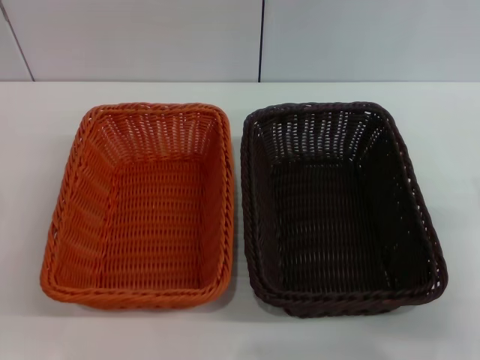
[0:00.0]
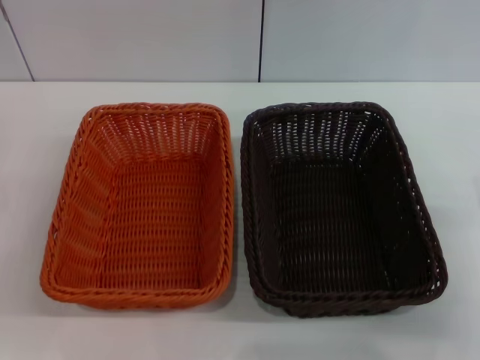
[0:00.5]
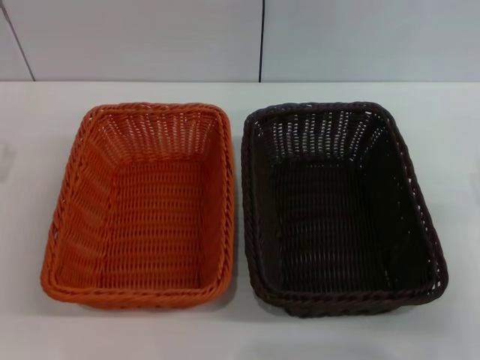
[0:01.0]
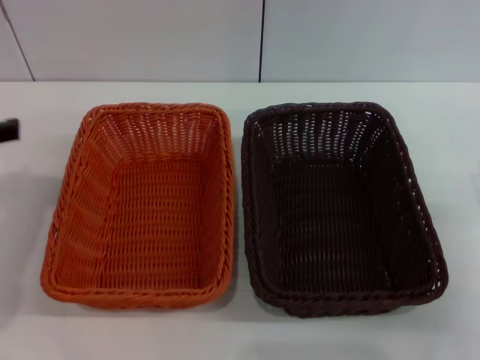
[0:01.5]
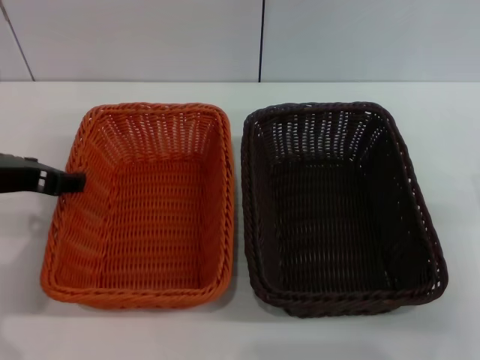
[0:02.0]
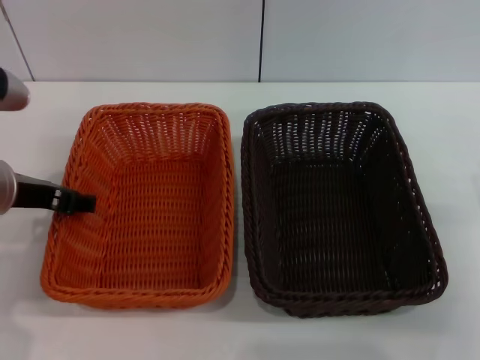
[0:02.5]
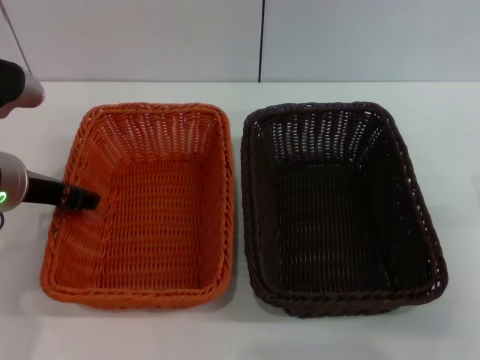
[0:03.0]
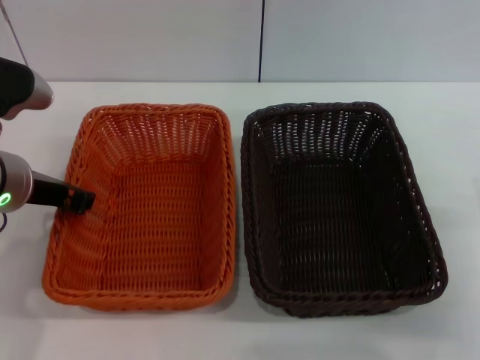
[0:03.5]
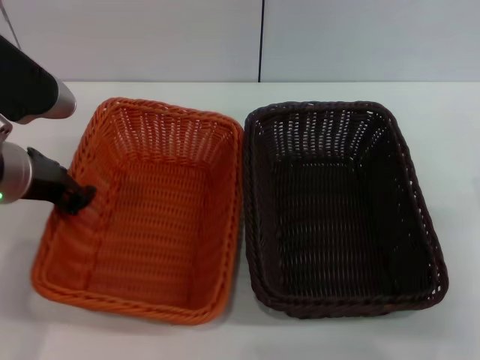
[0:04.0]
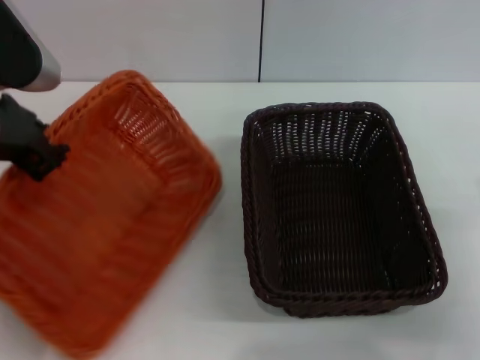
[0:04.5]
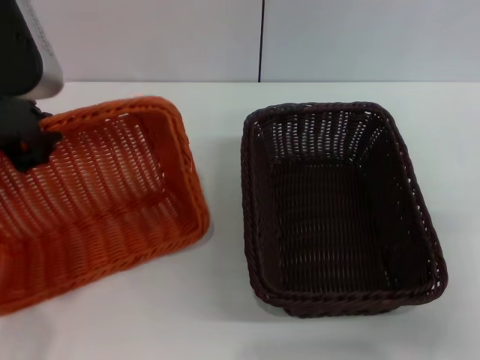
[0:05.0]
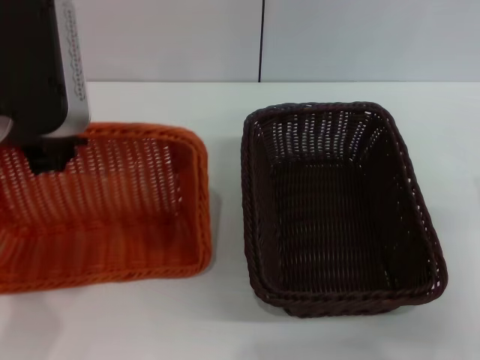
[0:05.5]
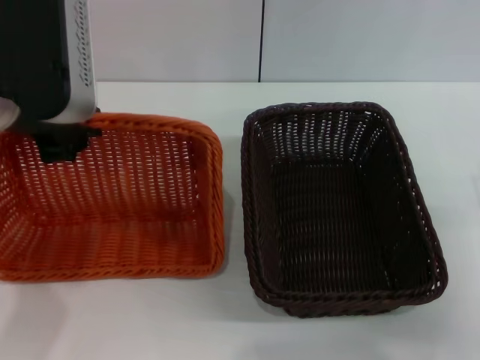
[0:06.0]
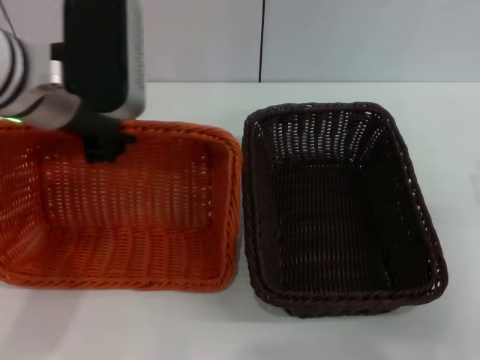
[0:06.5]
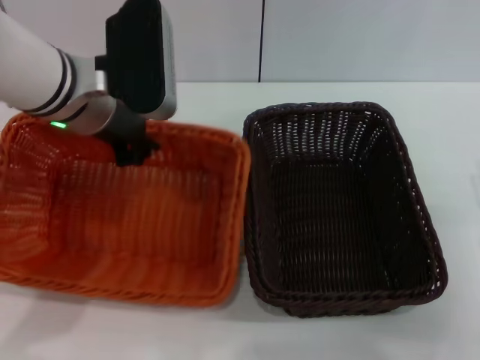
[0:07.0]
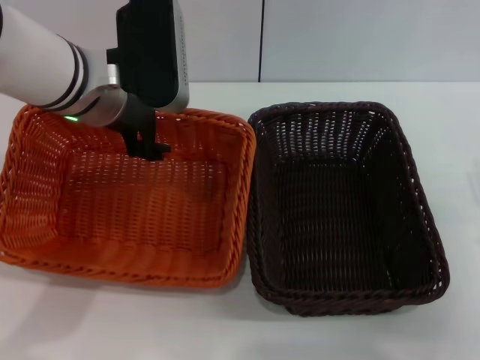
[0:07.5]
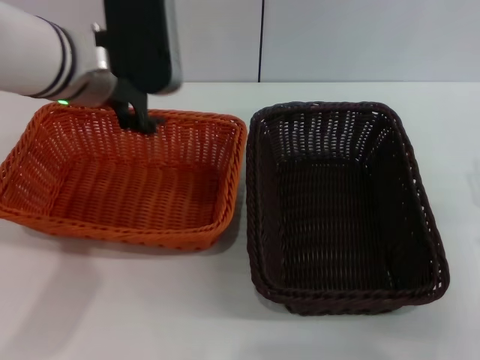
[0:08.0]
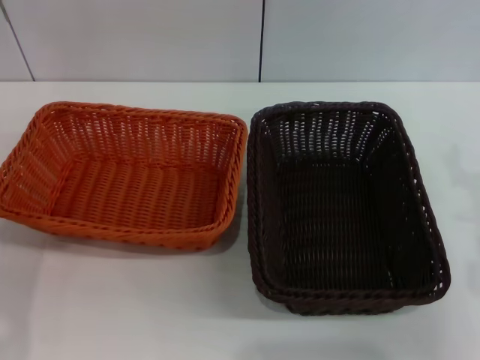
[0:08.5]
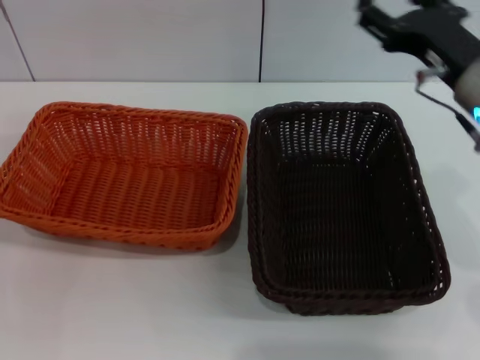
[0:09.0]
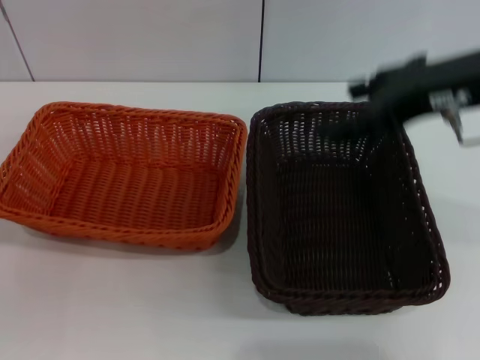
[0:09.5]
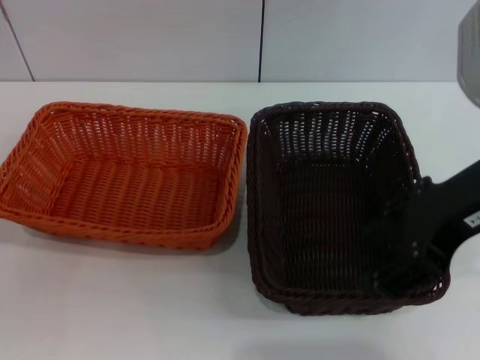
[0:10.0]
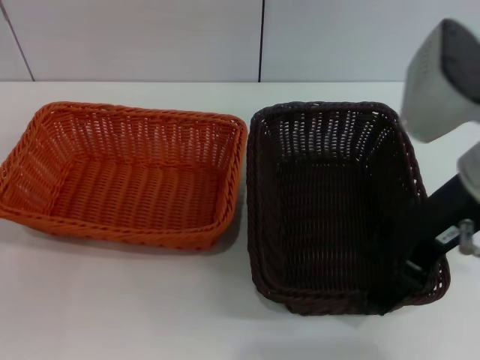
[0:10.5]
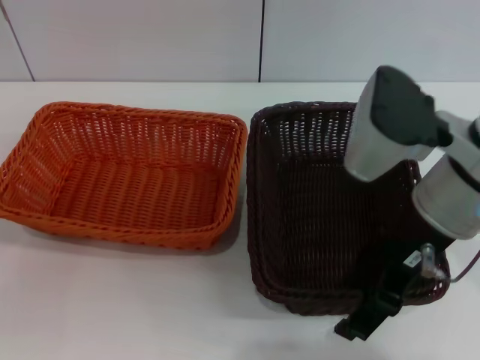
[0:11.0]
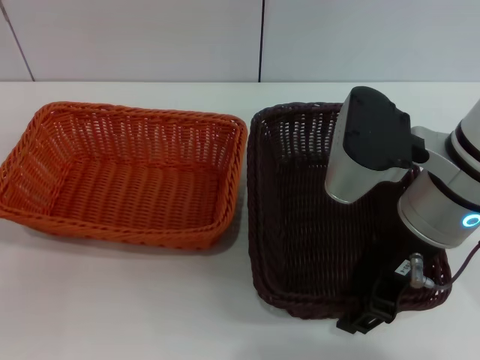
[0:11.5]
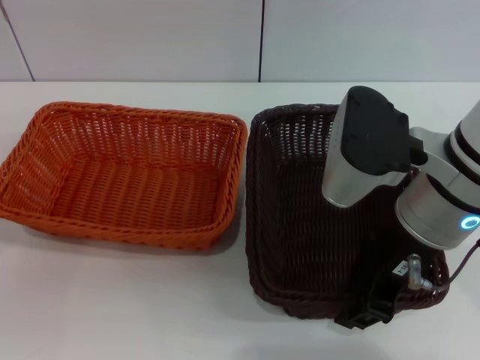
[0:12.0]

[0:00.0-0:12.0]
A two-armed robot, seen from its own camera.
Step, 0:00.0 to 0:04.0: Pick up the light basket with the left gripper.
Step, 0:04.5 to 0:07.5: Place the light basket in the center of view with the left gripper.
0:00.0 to 0:02.0: The left gripper travels upward, to the right and forward by approximately 20 cm.
0:02.0 to 0:04.0: The left gripper closes.
0:04.0 to 0:06.0: The left gripper travels upward by roughly 10 cm.
0:06.0 to 0:08.0: The left gripper shifts about 5 cm forward, and opens its fingers.
0:08.0 to 0:10.0: The left gripper travels downward, backward and to the left by roughly 30 cm. The right gripper shifts about 20 cm upward and to the left.
0:10.0 to 0:12.0: The right gripper goes some 10 cm downward and to the left, and closes its fingers.

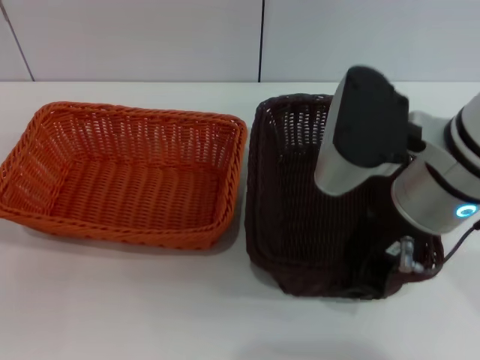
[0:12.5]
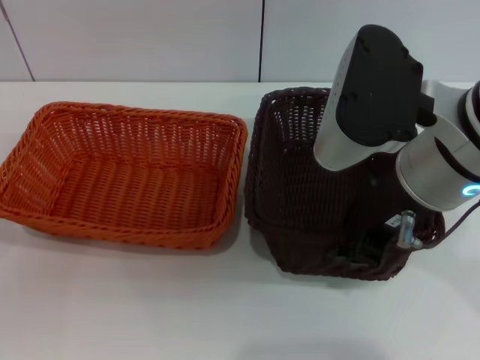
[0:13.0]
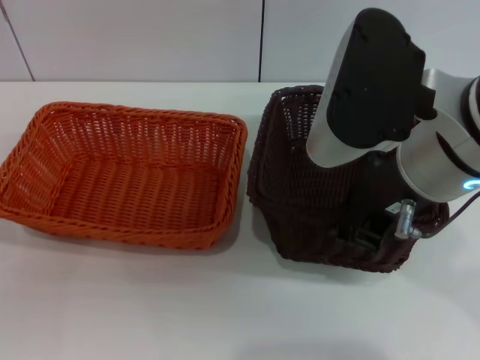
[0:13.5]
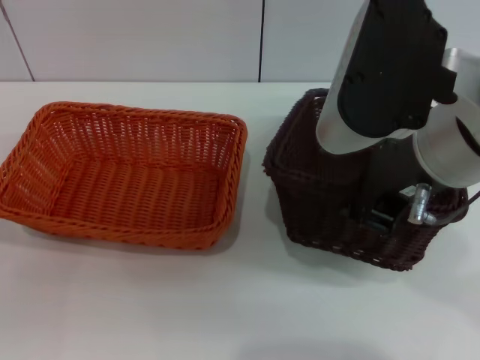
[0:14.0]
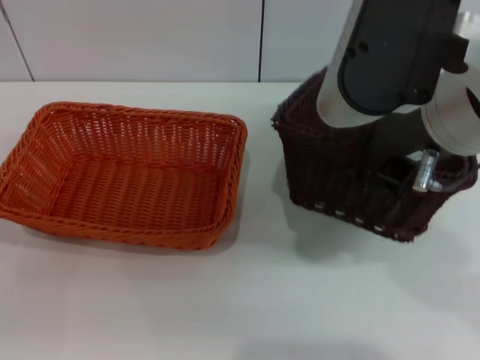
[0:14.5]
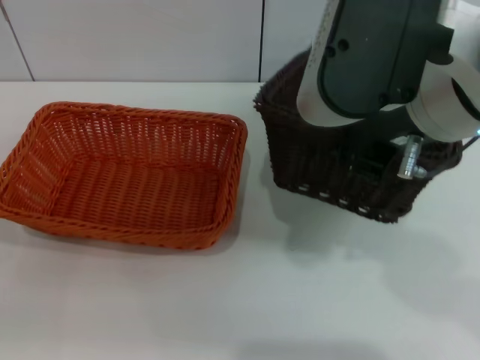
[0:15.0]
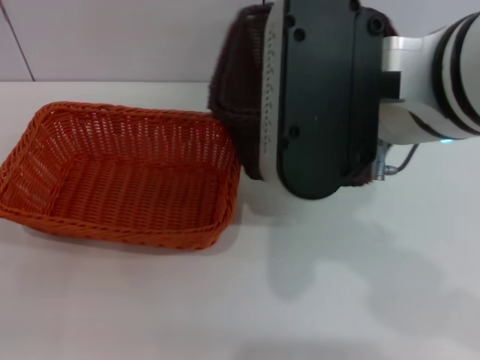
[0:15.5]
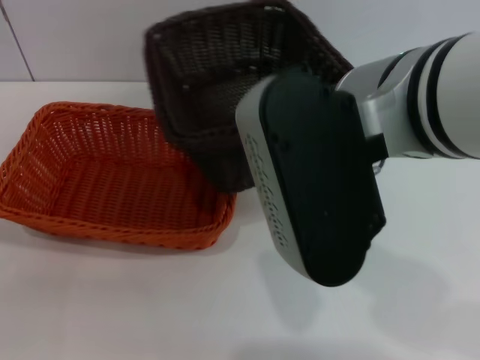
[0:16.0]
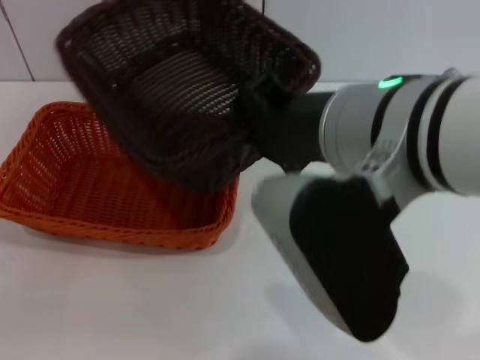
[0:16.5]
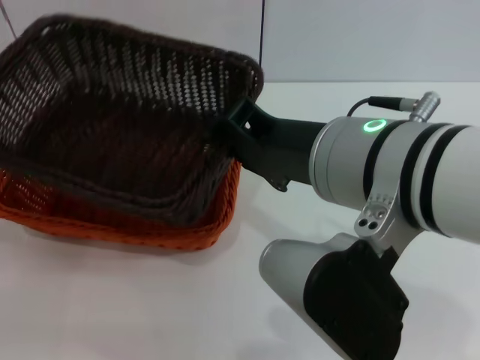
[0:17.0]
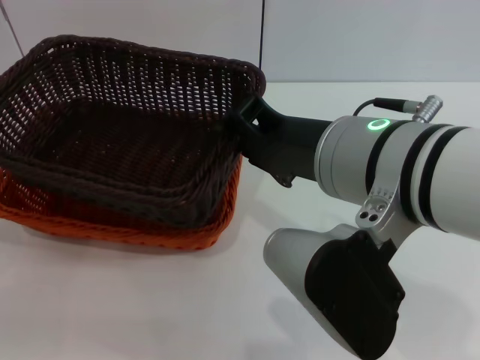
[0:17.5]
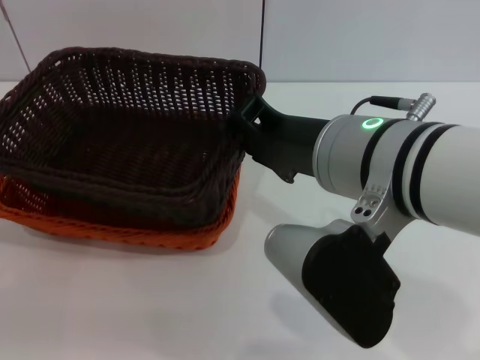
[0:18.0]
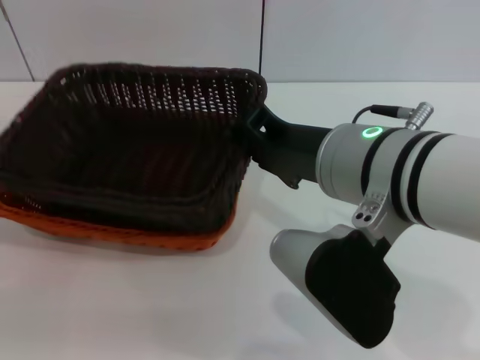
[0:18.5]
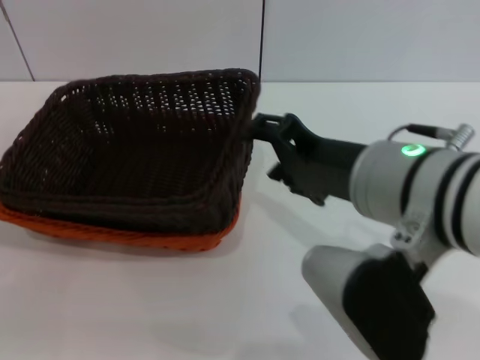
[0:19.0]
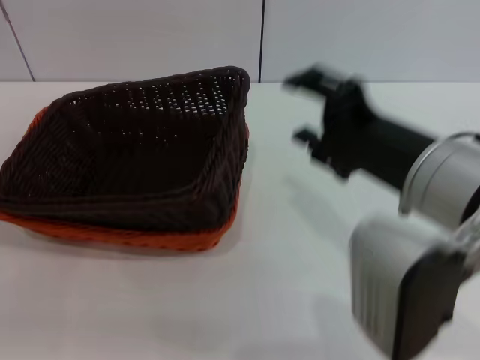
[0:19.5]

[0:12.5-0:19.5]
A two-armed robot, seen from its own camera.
Step, 0:12.5 to 0:14.5: Pick up the dark basket with the right gripper.
Step, 0:15.0 to 0:19.0: Place the dark basket on the light basket with the right gripper.
0:12.5 to 0:14.5: The right gripper heads upward, covering about 10 cm.
0:14.5 to 0:16.0: The right gripper shifts by some 5 cm.
0:16.0 to 0:17.5: The right gripper heads downward, covering some 5 cm.
0:17.5 to 0:19.5: The right gripper goes about 5 cm to the right, and opens up.

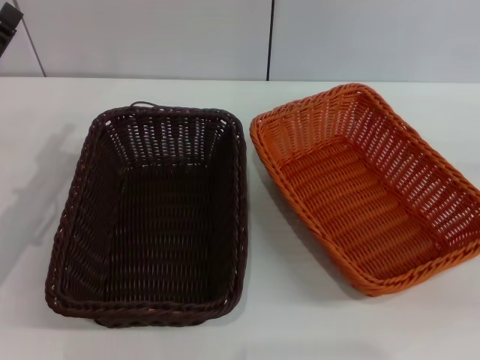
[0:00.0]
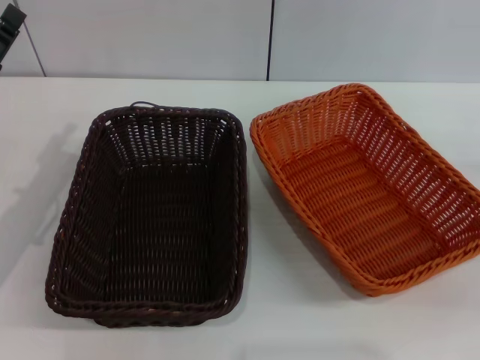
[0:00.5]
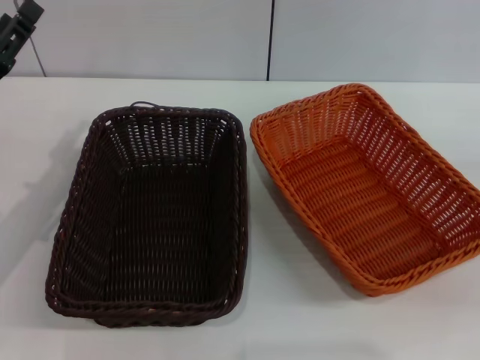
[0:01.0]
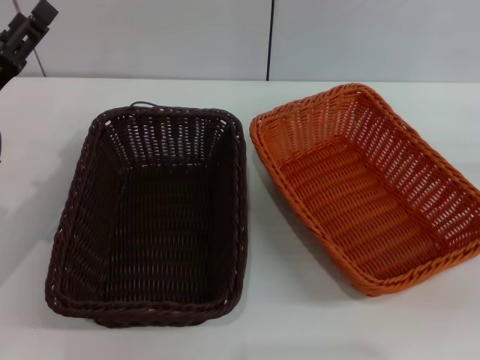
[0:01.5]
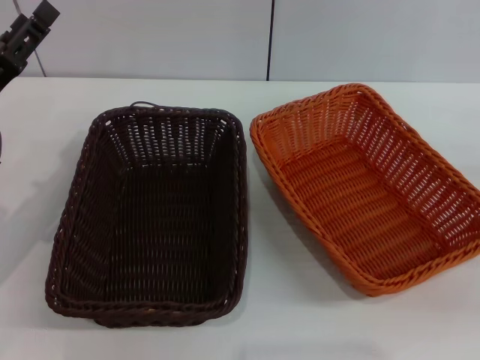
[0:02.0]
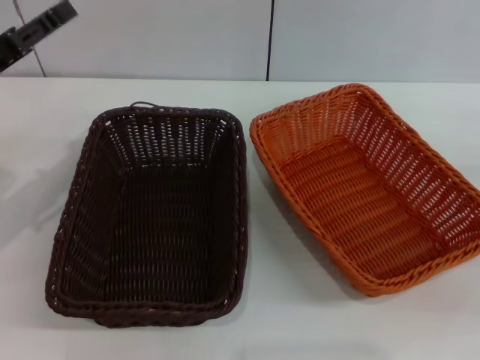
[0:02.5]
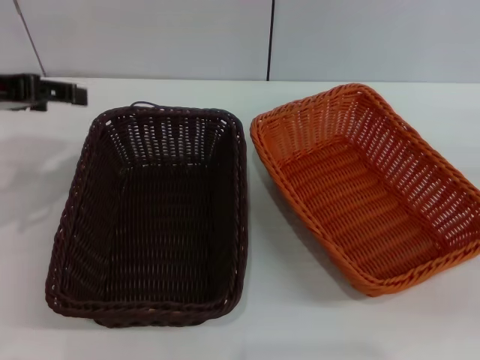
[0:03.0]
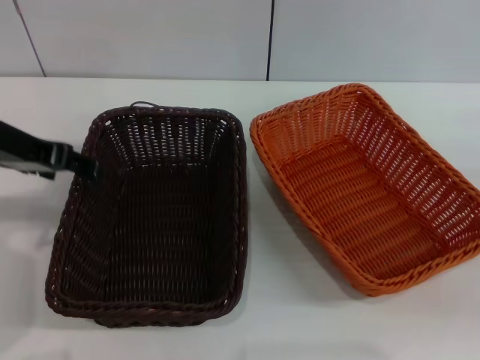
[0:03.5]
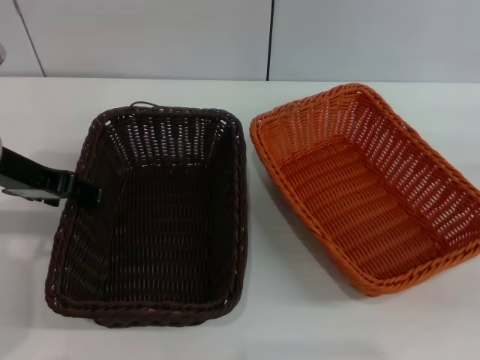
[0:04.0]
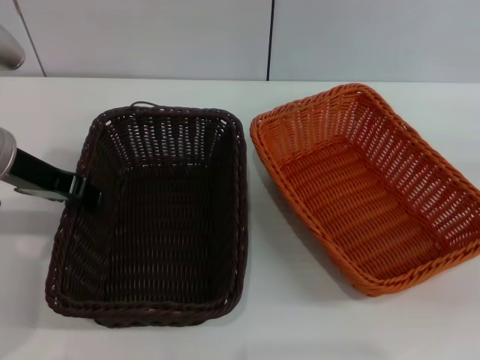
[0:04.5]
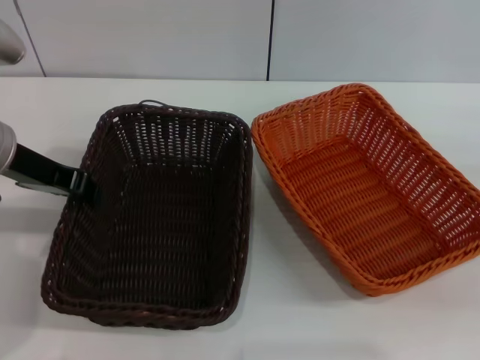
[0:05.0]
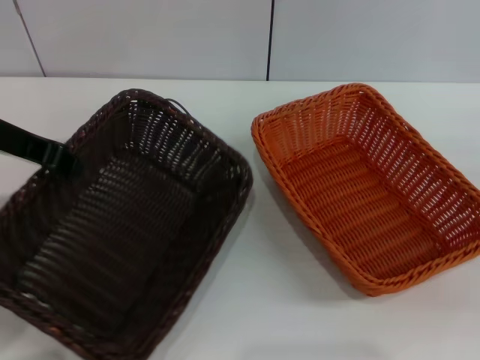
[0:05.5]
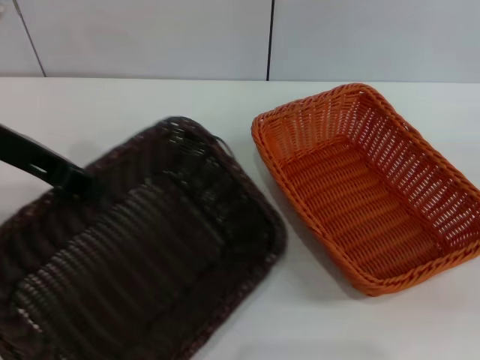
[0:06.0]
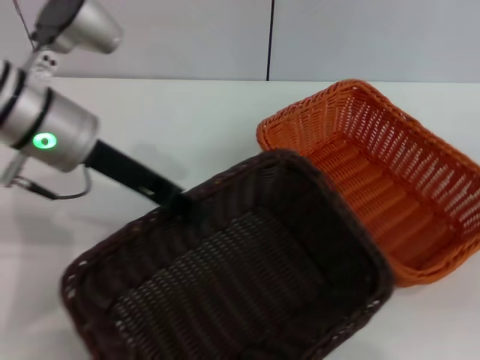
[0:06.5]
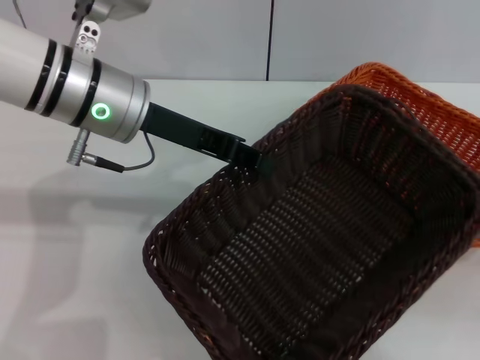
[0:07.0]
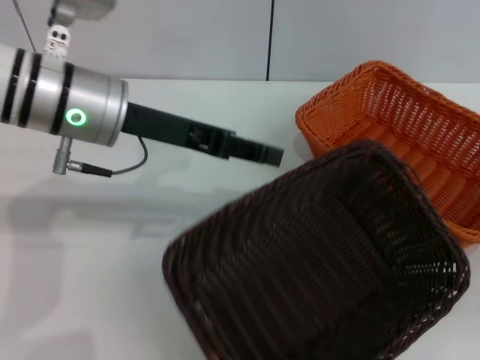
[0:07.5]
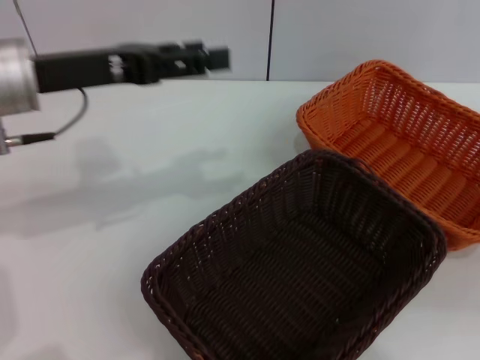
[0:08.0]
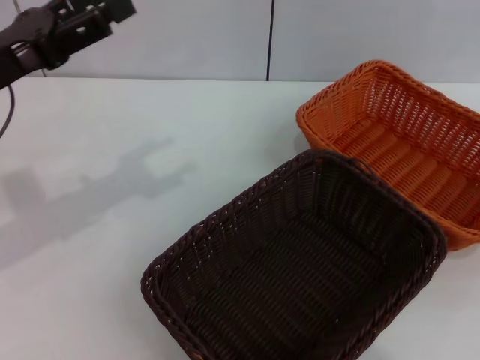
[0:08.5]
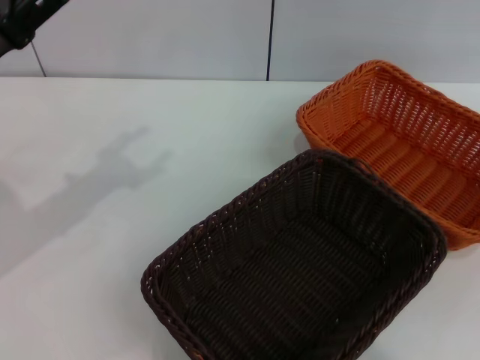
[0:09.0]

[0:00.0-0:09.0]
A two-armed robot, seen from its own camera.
Step, 0:00.0 to 0:05.0: Pick up the dark basket with the left gripper.
Step, 0:05.5 to 0:07.5: Place the dark basket in the center of view with the left gripper.
0:00.0 to 0:02.0: The grippers make only small movements.
0:02.0 to 0:04.5: The left gripper goes about 5 cm upward.
0:04.5 to 0:07.0: The left gripper travels to the right by roughly 10 cm, and closes.
0:07.0 to 0:09.0: The left gripper shifts some 15 cm to the left and backward, and opens up, while the right gripper moves upward, roughly 15 cm.
